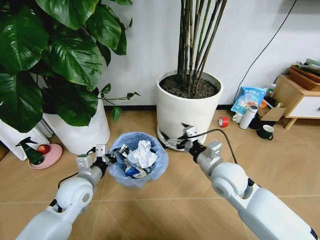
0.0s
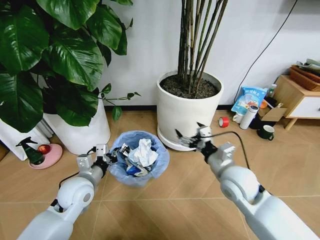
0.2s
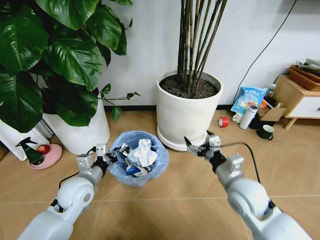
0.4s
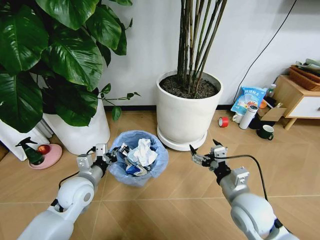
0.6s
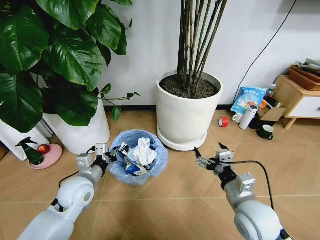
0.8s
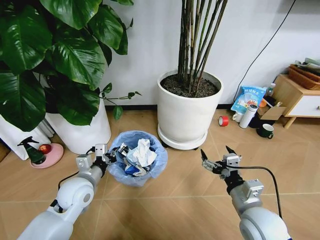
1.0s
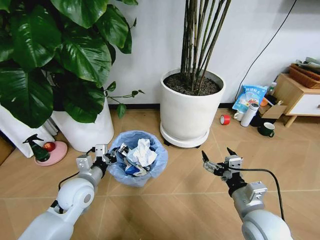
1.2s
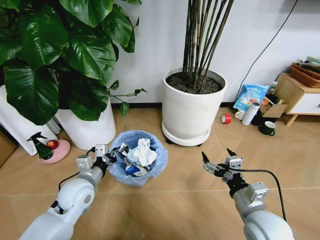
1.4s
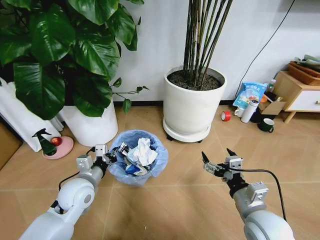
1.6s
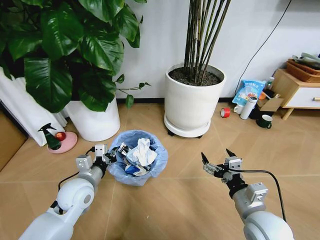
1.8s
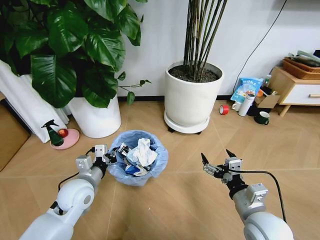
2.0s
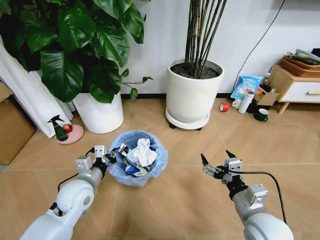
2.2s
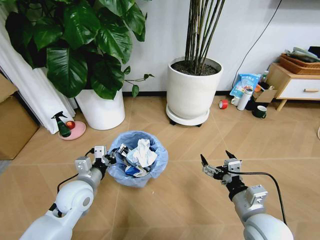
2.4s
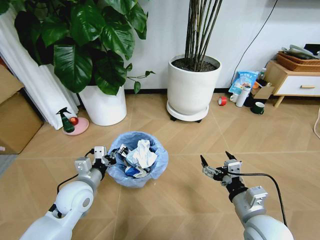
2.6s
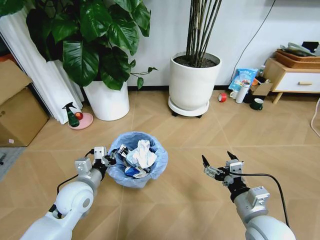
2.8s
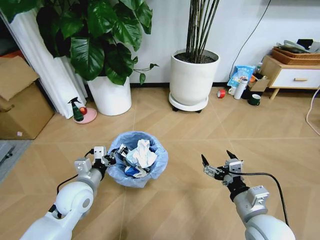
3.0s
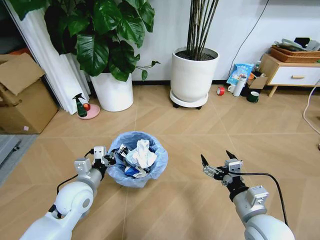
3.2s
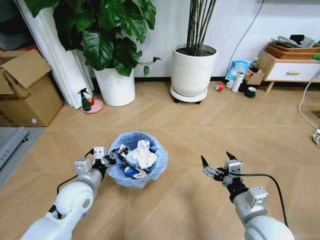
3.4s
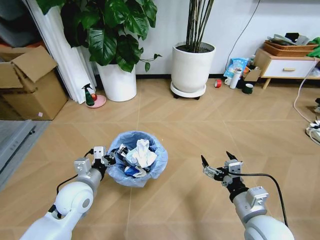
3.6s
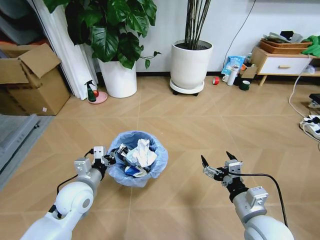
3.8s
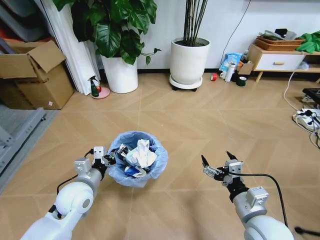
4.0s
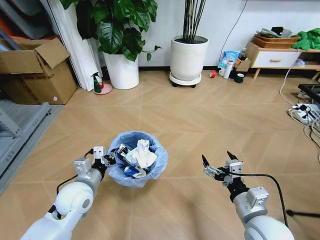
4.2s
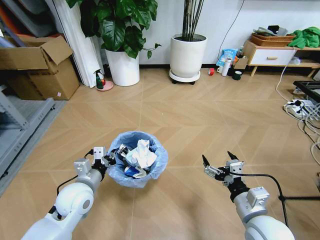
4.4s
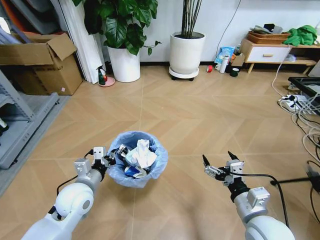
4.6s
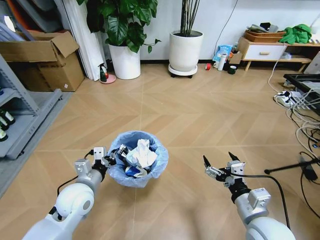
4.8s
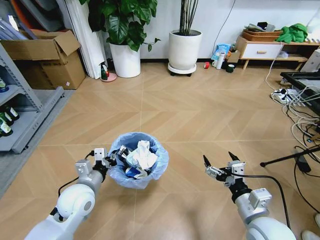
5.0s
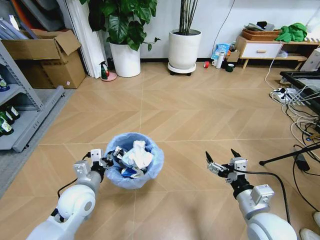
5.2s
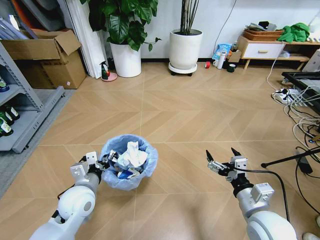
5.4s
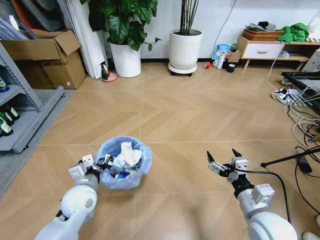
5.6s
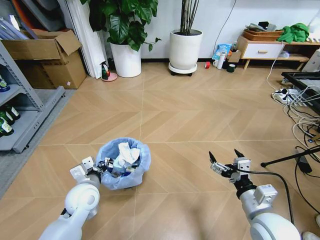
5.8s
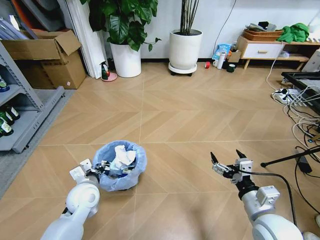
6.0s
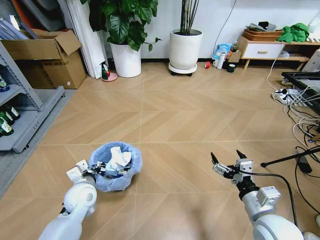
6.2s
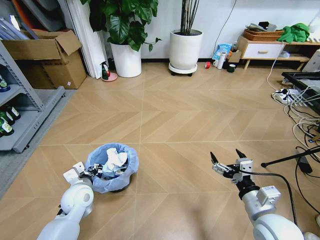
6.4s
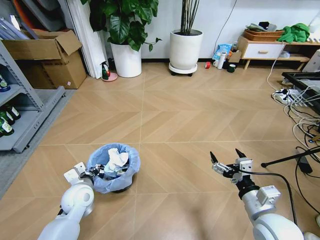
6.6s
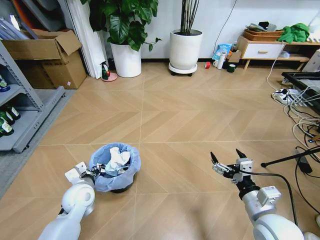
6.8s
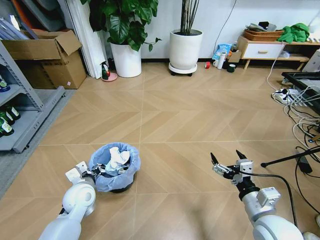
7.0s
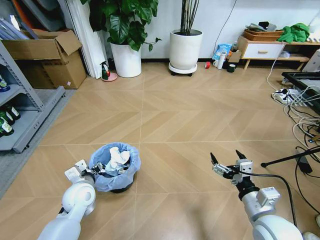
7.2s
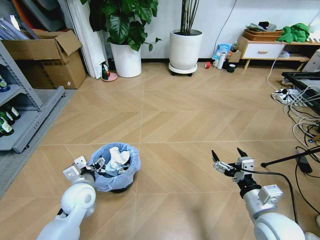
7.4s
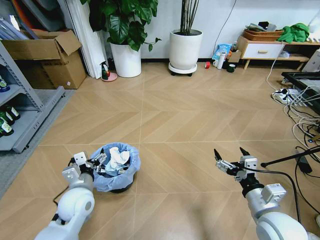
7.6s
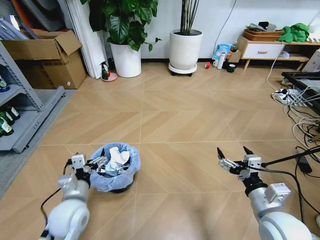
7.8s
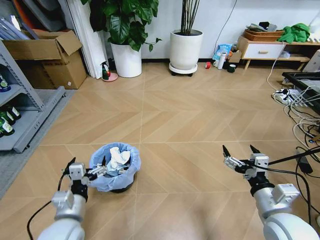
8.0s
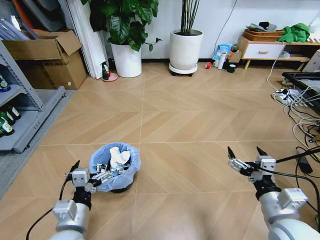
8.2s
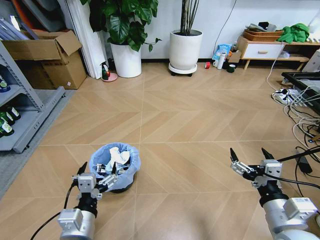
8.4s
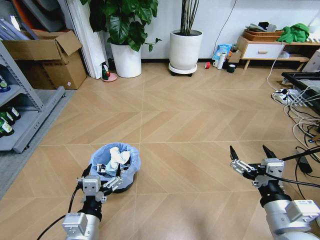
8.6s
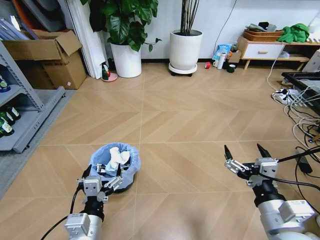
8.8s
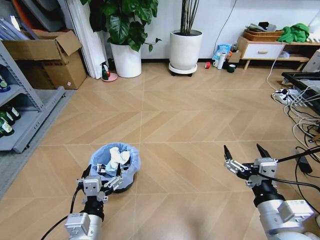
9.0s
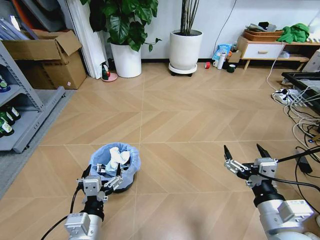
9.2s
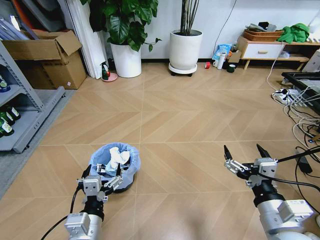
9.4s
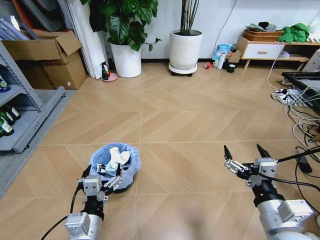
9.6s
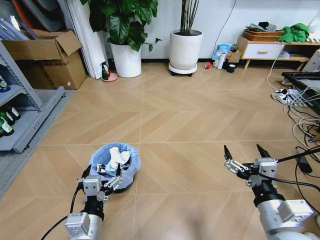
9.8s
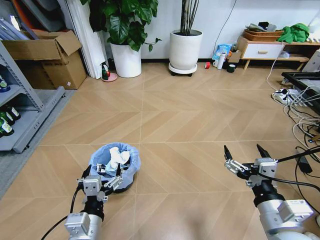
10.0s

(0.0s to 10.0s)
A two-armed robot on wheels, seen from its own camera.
Task of the whole recording: Pick up the trash bin and place the garbage on the floor into it.
0.0s - 1.4s: The right gripper is displaced backward and to the right by about 15 cm.
5.8s - 7.2s: The left gripper opens.
7.2s - 8.6s: The right gripper moves upward, some 5 cm, while the left gripper is displaced backward and to the right by approximately 20 cm, and opens up.
8.6s - 10.0s: The grippers move only a little.

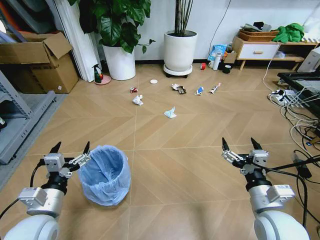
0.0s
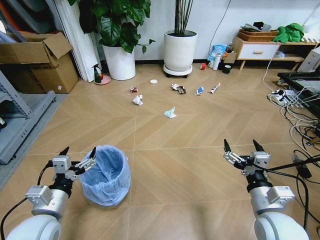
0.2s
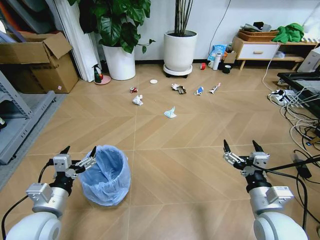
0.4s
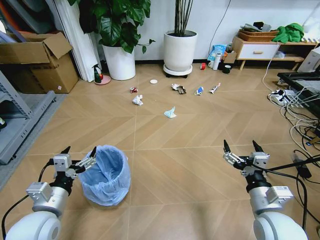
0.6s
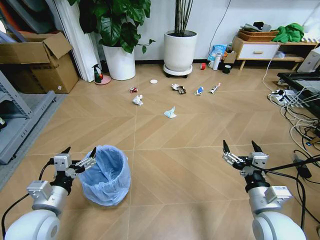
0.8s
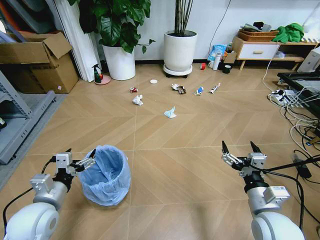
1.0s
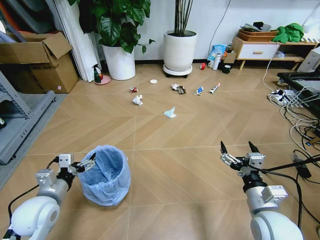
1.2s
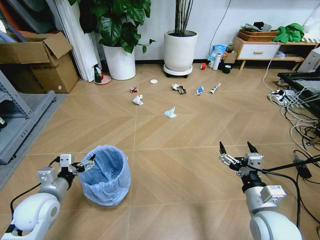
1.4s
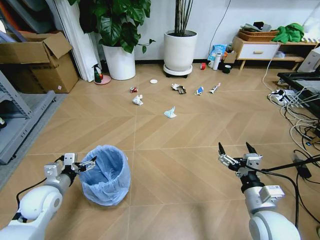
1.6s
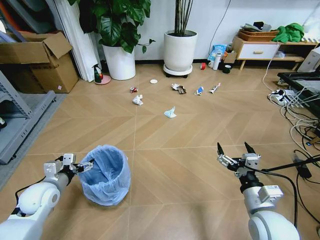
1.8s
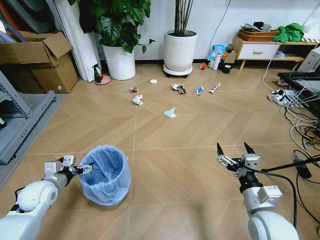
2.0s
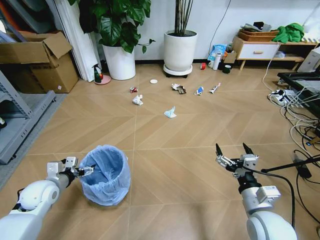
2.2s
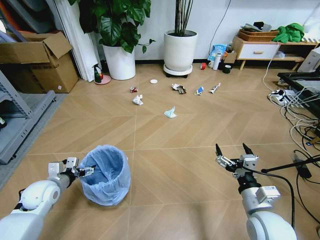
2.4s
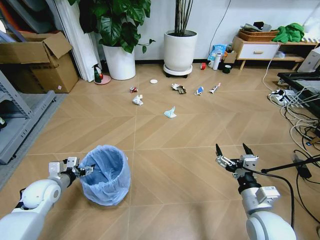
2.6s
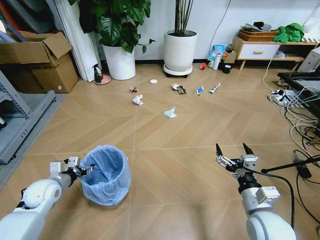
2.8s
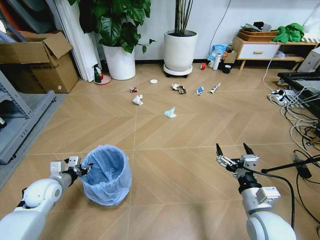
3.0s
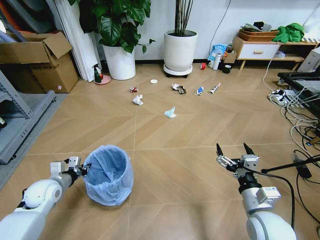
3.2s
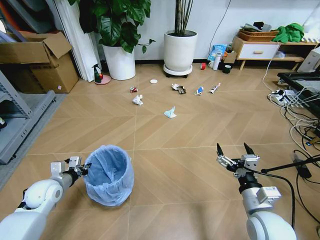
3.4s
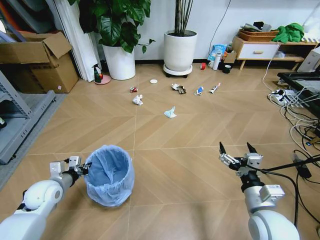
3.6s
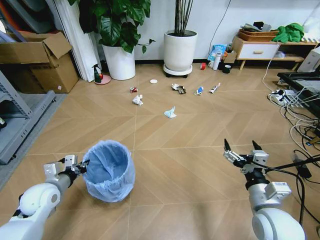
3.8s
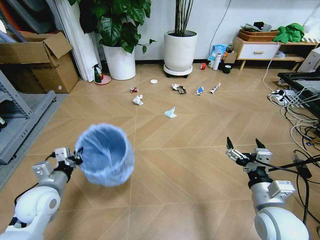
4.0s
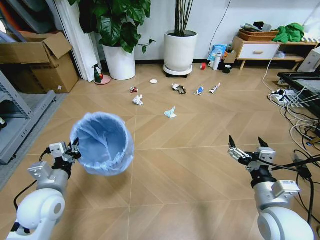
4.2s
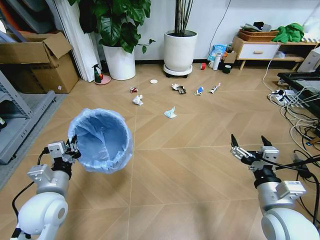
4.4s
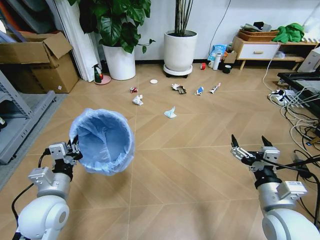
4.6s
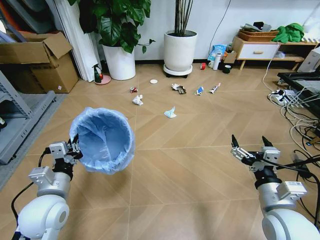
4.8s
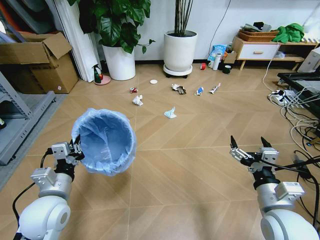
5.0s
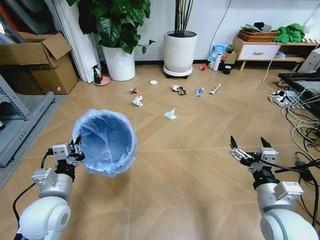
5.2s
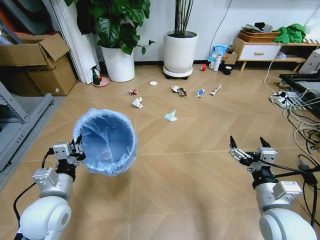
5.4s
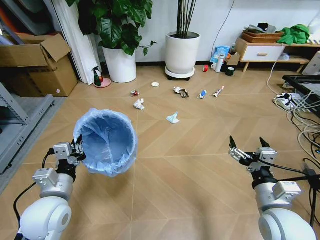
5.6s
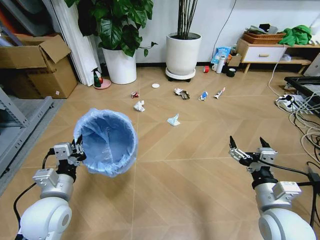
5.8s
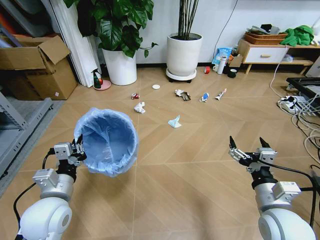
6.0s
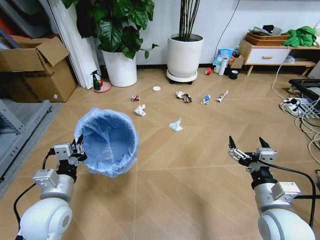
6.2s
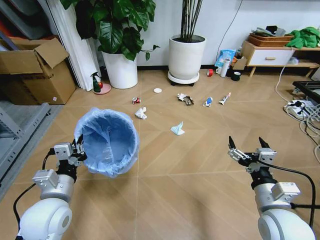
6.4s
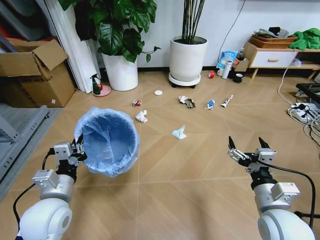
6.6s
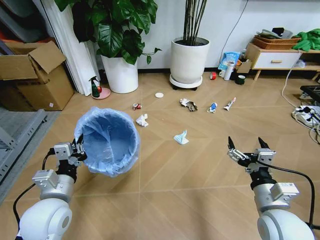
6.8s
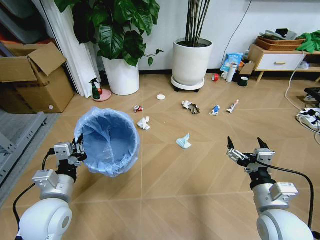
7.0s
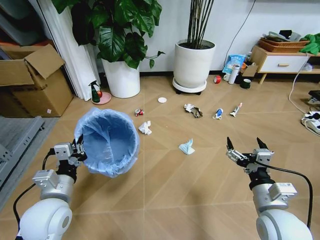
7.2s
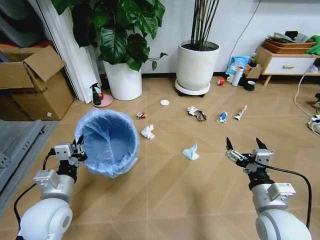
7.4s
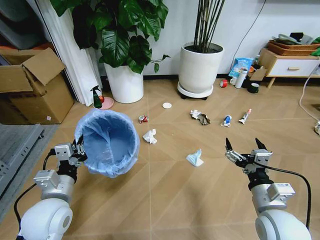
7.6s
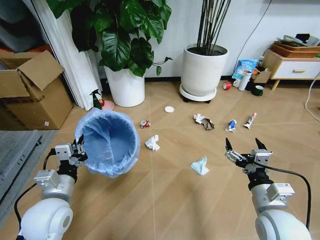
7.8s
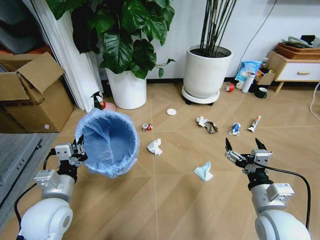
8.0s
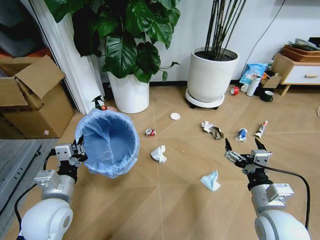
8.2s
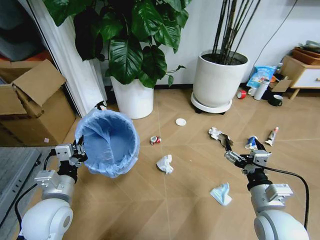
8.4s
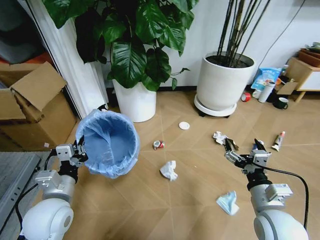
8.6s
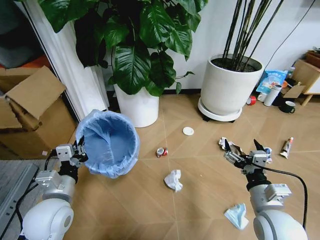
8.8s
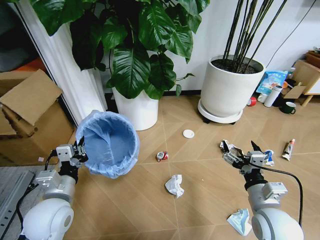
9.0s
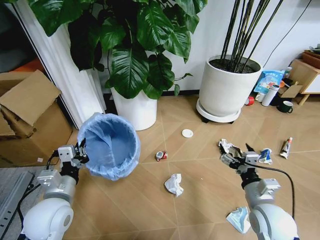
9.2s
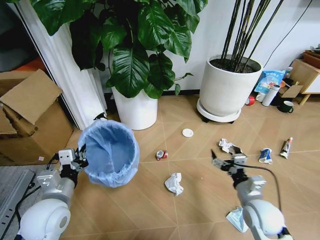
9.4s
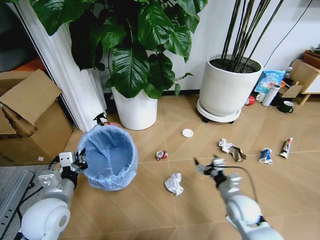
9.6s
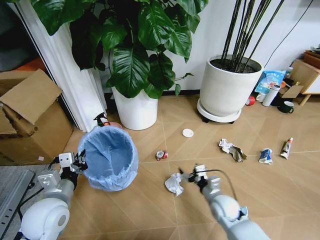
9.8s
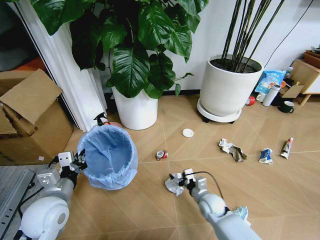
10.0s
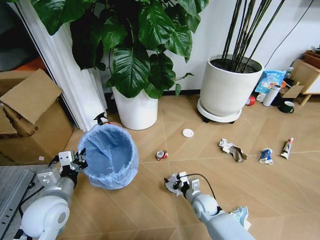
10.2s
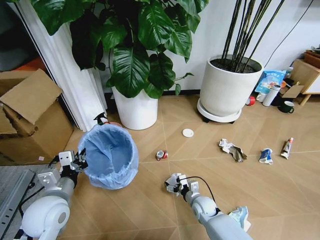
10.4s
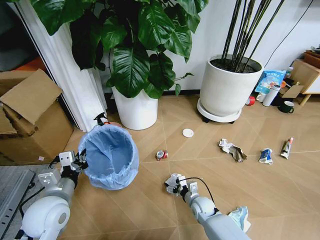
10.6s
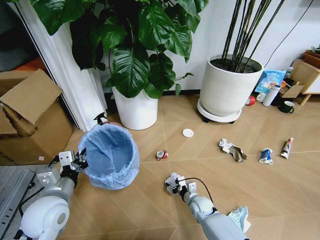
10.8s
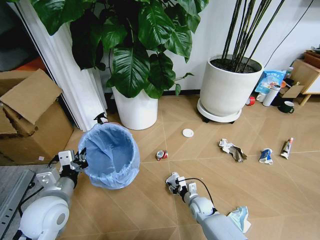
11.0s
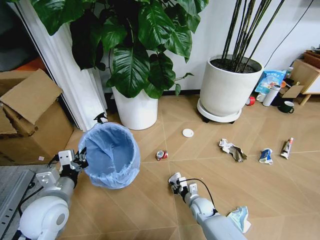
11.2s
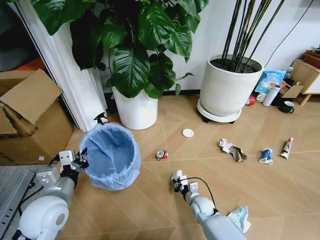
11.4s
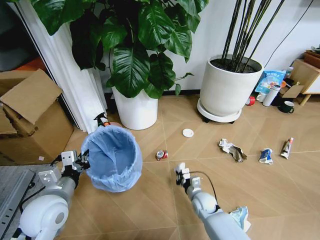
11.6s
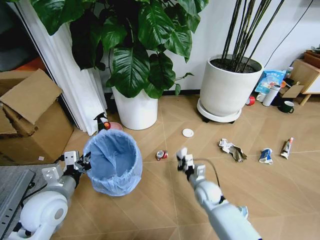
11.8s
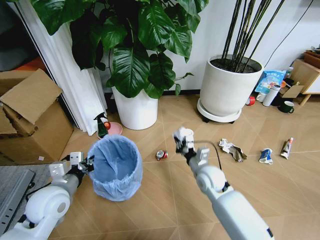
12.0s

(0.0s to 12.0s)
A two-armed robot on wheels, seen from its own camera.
Task of the whole recording: Pick up the trash bin and place the garbage on the floor into it.
1.6s - 3.0s: The left gripper shifts by roughly 5 cm, and closes its fingers.
3.0s - 4.4s: The right gripper heads upward, covering some 5 cm. The left gripper is displaced to the right, upward and backward by some 15 cm, and closes its fingers.
9.0s - 10.4s: The right gripper travels downward, forward and to the left by some 30 cm.
10.4s - 12.0s: The right gripper heads upward, covering about 15 cm, and closes.
